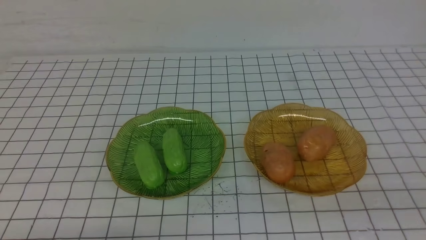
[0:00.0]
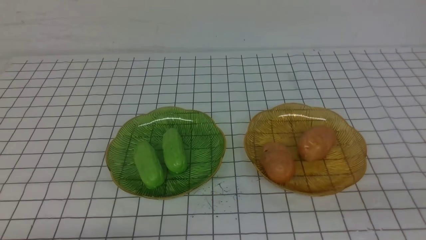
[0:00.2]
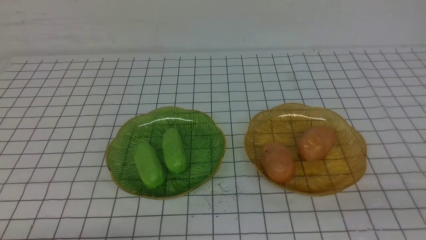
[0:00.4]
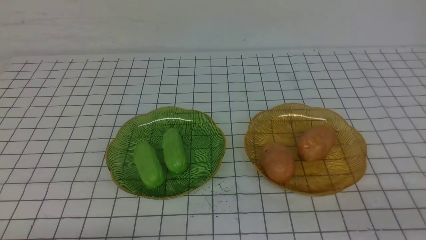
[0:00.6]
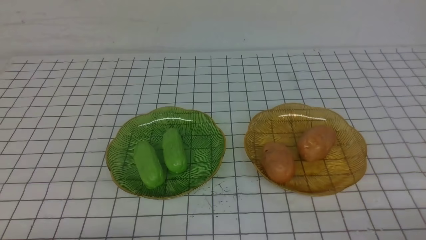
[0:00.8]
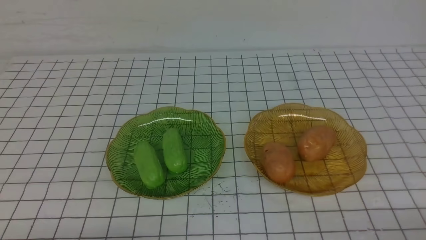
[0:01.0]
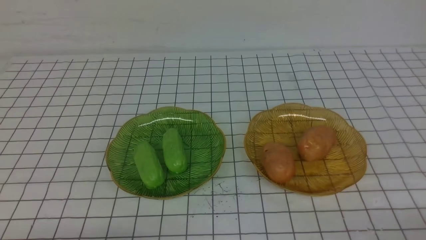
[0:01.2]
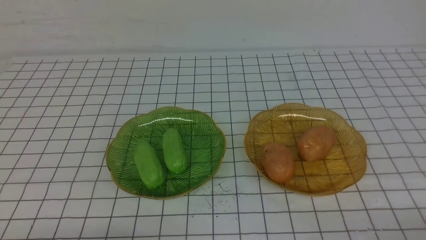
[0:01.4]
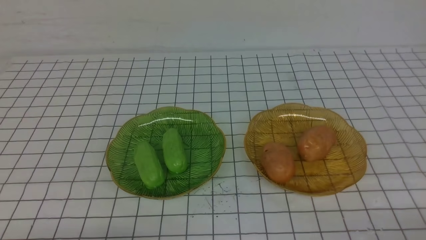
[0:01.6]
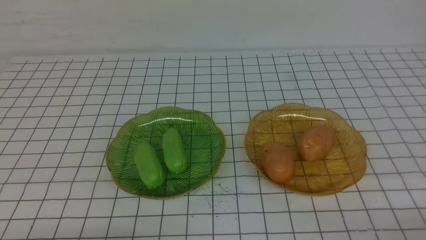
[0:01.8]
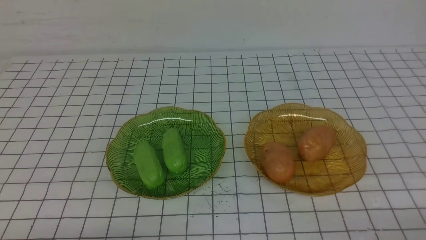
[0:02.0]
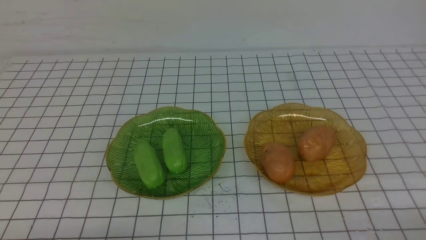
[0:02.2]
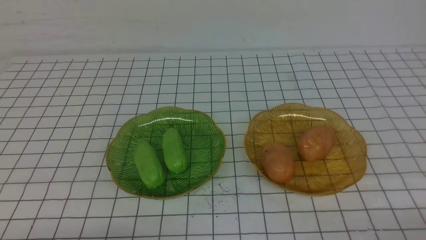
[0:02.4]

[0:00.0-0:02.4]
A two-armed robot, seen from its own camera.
0:01.2 to 0:02.4: Both grippers stay about where they are.
